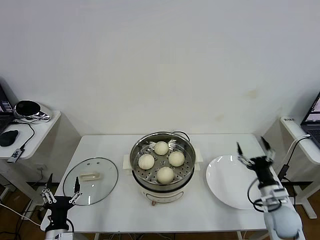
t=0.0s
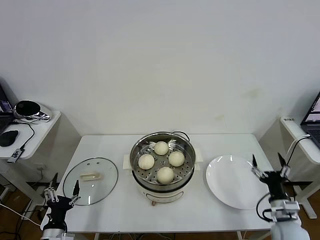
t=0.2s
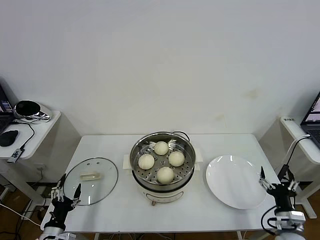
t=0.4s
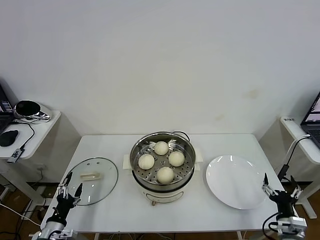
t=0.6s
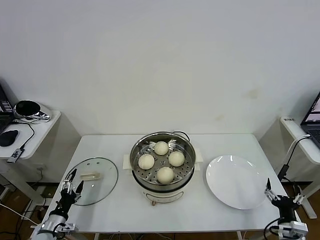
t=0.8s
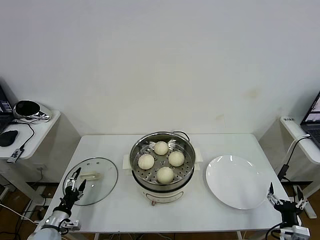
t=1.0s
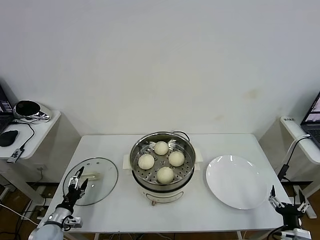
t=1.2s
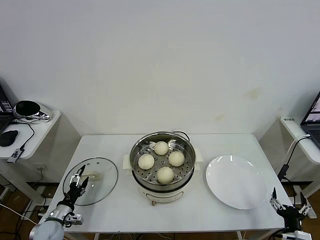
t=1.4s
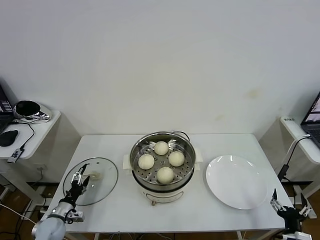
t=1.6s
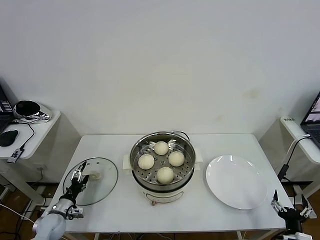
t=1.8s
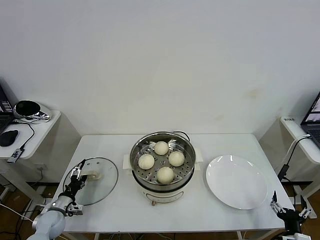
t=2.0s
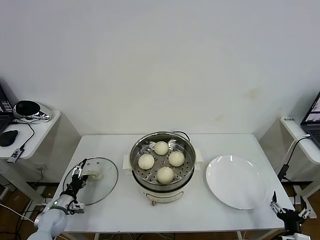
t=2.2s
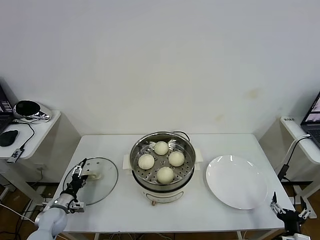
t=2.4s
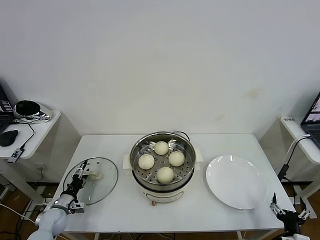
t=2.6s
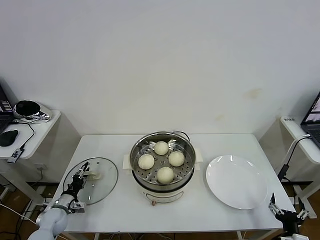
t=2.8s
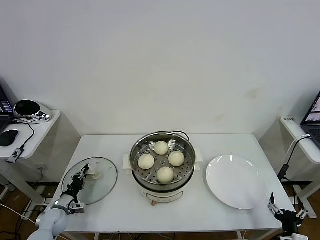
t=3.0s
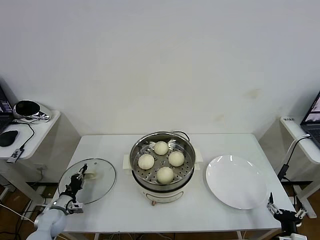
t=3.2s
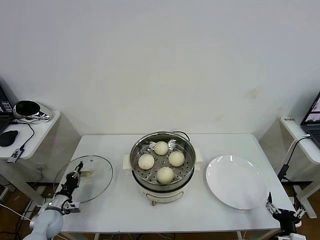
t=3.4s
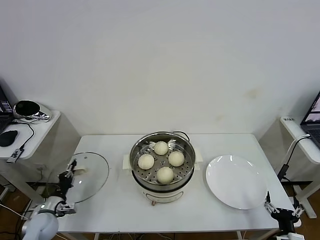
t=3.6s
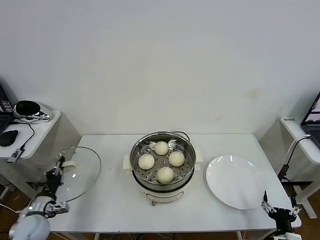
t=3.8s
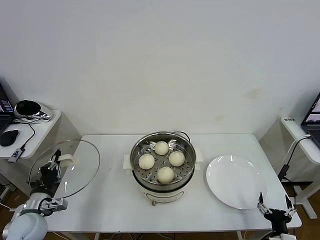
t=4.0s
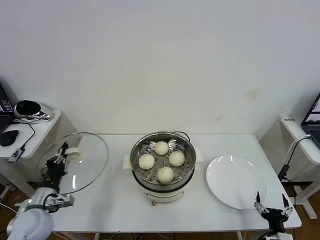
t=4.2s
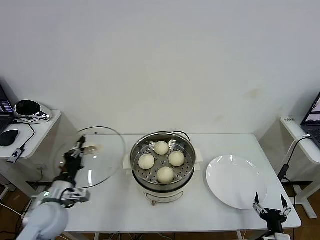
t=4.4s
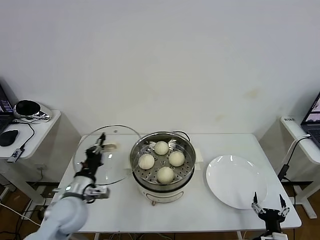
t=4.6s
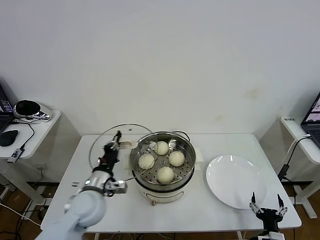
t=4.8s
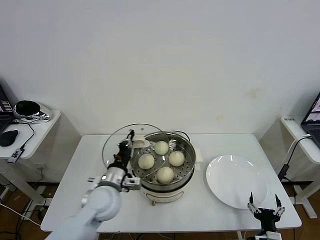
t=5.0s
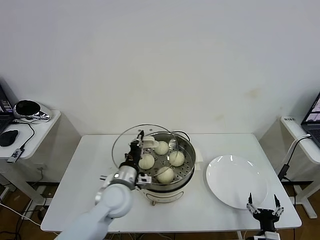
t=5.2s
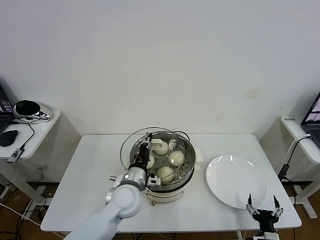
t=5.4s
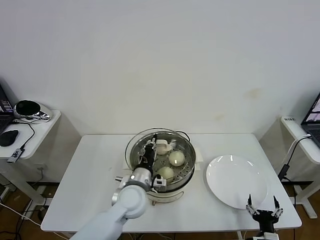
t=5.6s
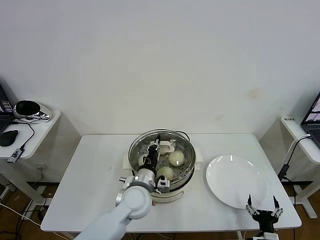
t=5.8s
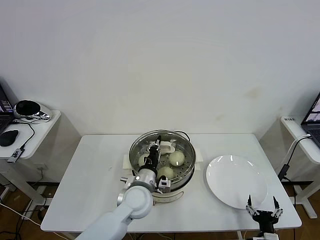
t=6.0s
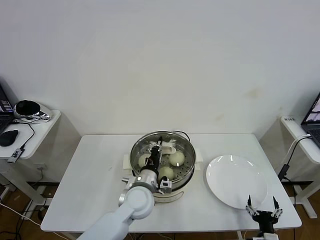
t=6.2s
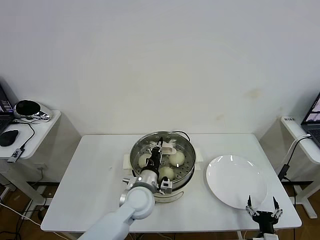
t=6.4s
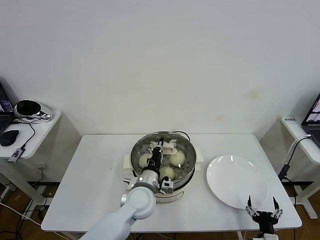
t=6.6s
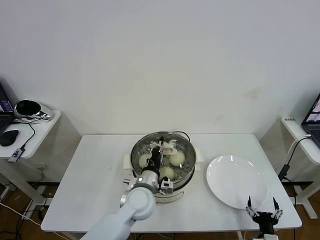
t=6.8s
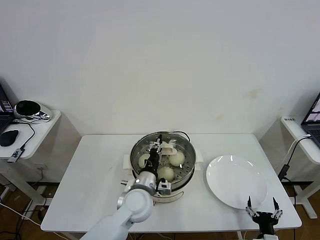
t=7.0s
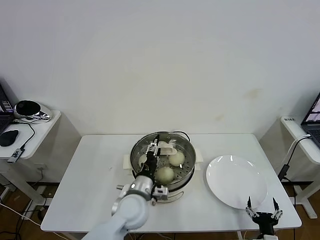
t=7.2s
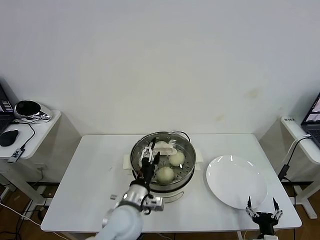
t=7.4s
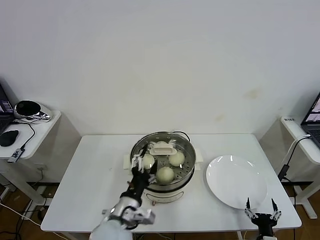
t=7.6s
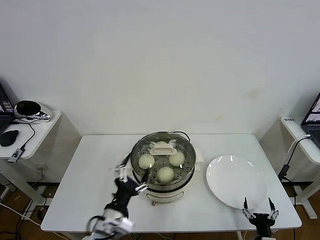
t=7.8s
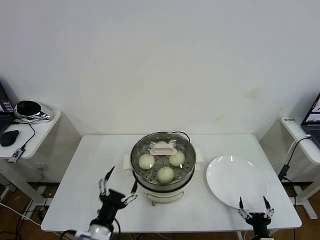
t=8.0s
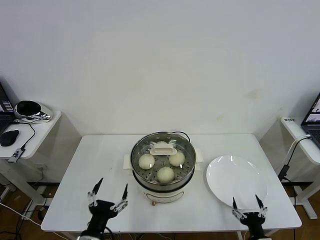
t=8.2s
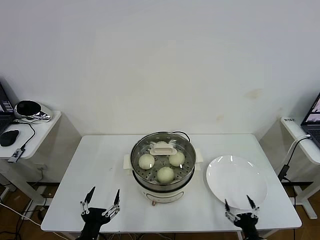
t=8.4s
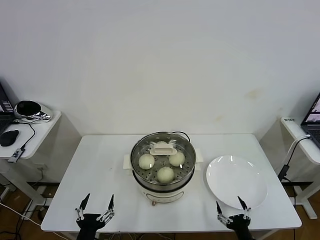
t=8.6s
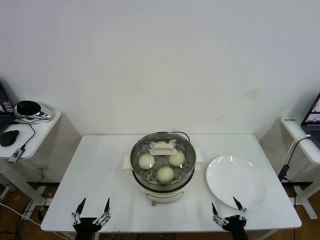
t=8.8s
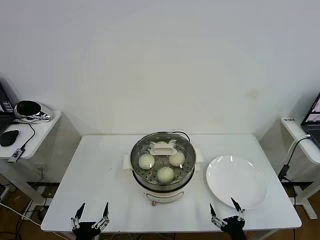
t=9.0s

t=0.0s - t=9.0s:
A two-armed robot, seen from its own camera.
Task of the whole recording: take steamed baozi put them in steamer then cover it.
Step, t=0.0s - t=3.2s: Grasp the pot lid with left gripper.
Step, t=3.4s - t=7.4s: Place the pot lid on the steamer with left gripper.
t=0.0s - t=1.6s: The right gripper is displaced backward and downward by some 15 cm. Meanwhile the left gripper travels forward, to the left and downward by approximately 15 cm.
t=1.6s - t=3.0s: The left gripper closes up.
t=3.0s - t=4.4s: The left gripper shifts some 20 cm upward and to the right.
t=4.4s - t=6.0s: The left gripper shifts about 25 cm to the right.
t=6.0s - t=7.6s: The left gripper goes approximately 10 cm backward, and opens its fingers.
t=7.6s - t=9.0s: The left gripper is displaced to the left, backward and downward by approximately 20 cm, while the right gripper goes roughly 5 cm to the left.

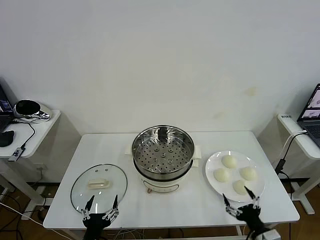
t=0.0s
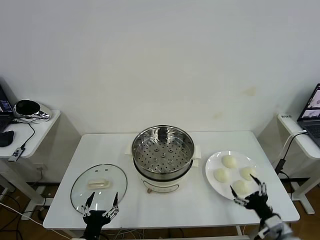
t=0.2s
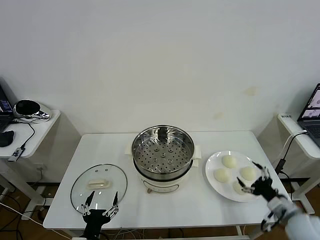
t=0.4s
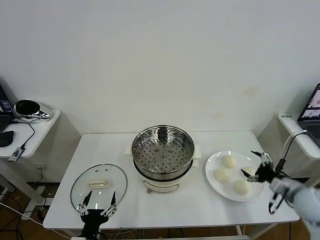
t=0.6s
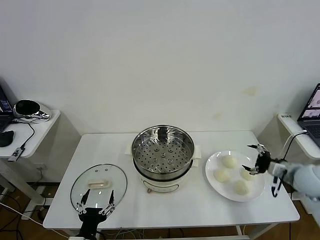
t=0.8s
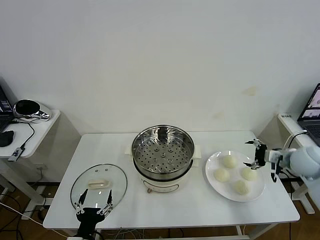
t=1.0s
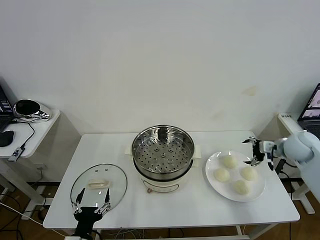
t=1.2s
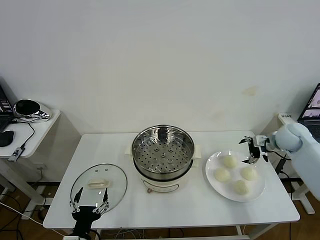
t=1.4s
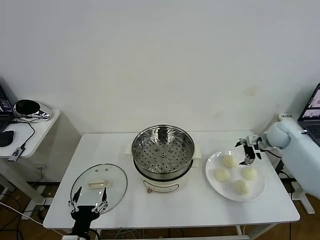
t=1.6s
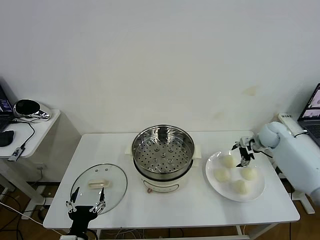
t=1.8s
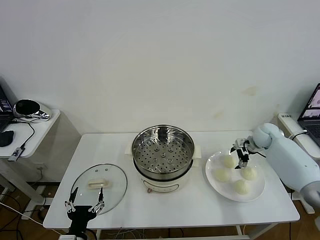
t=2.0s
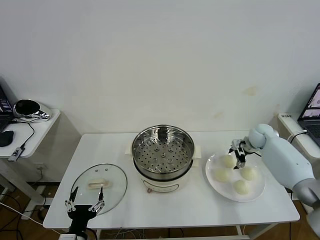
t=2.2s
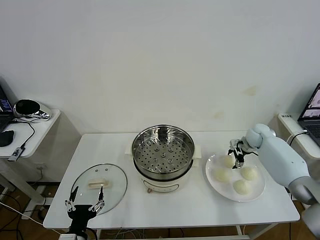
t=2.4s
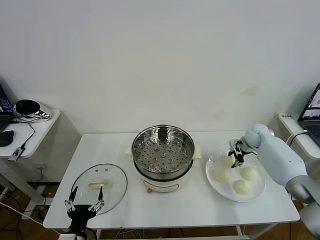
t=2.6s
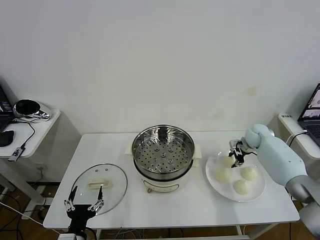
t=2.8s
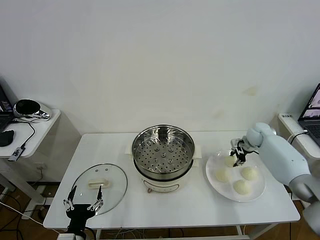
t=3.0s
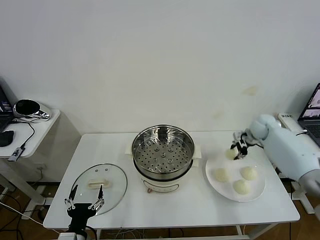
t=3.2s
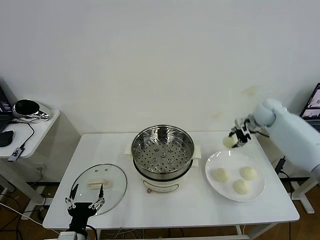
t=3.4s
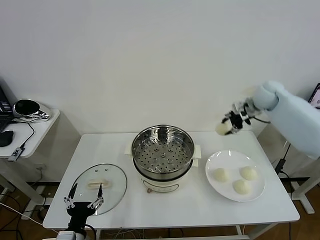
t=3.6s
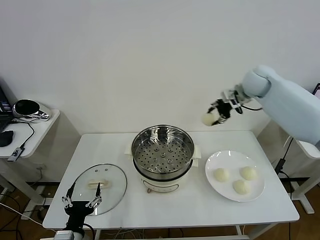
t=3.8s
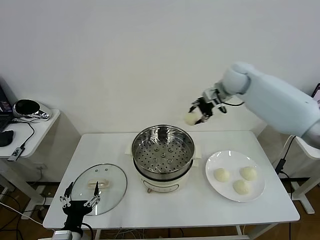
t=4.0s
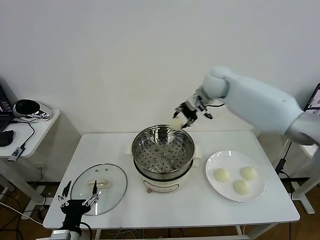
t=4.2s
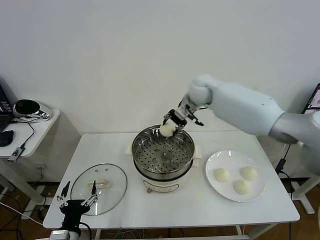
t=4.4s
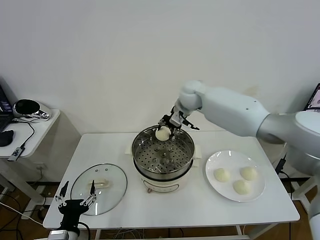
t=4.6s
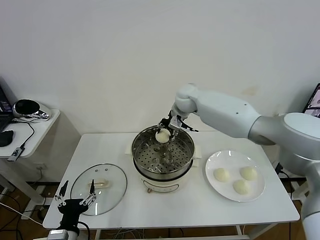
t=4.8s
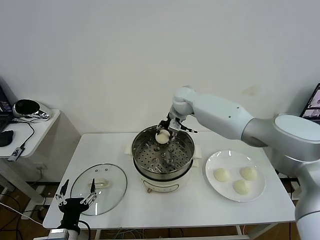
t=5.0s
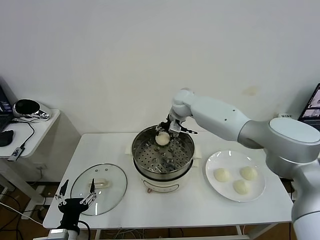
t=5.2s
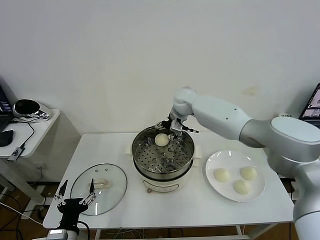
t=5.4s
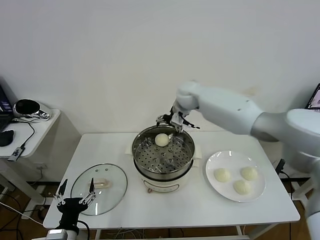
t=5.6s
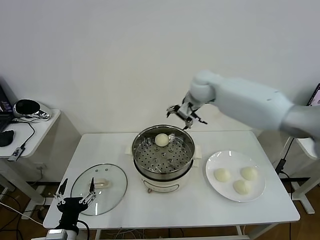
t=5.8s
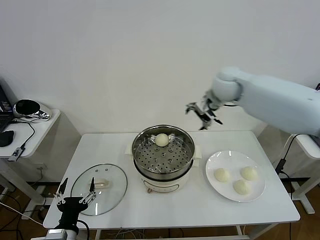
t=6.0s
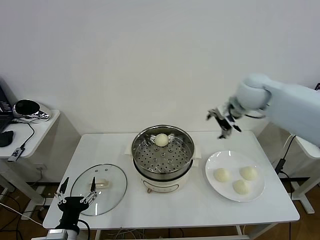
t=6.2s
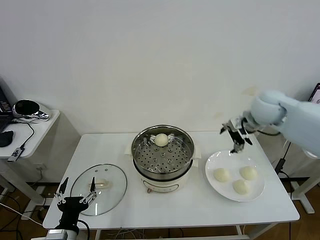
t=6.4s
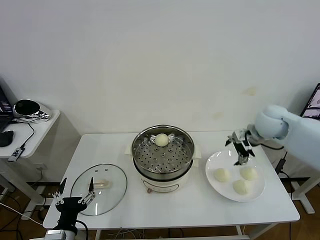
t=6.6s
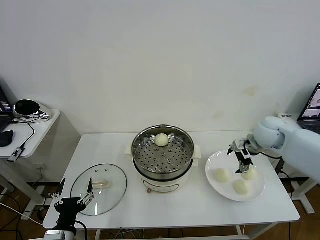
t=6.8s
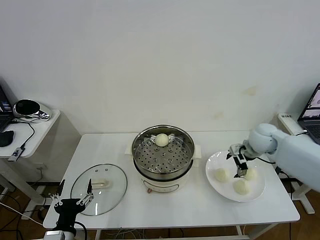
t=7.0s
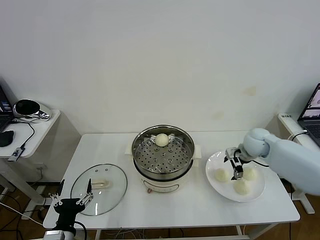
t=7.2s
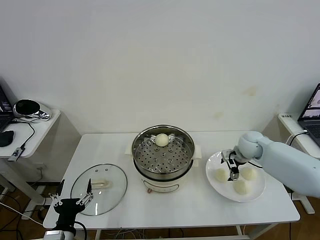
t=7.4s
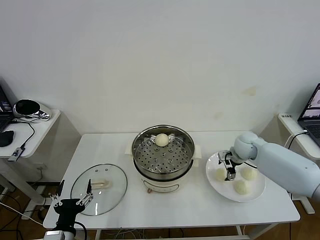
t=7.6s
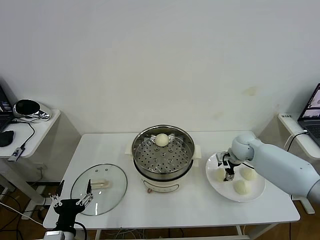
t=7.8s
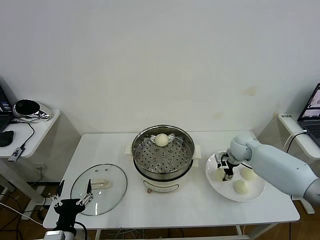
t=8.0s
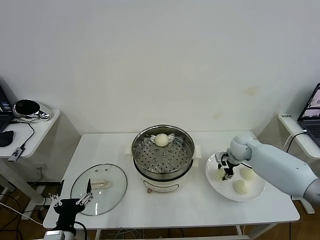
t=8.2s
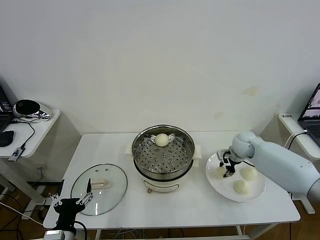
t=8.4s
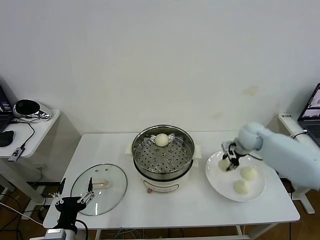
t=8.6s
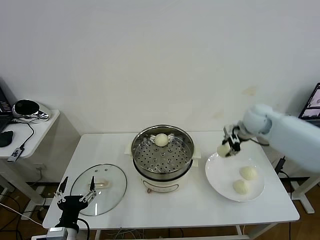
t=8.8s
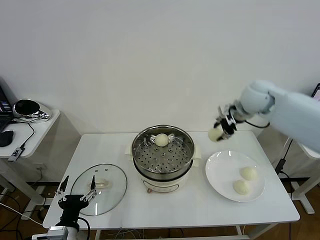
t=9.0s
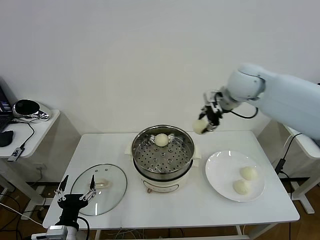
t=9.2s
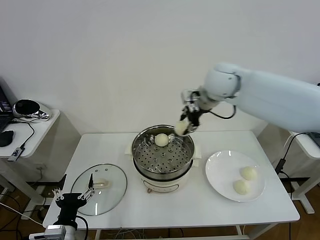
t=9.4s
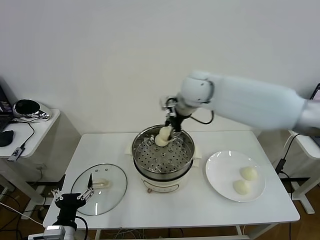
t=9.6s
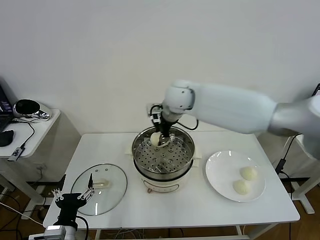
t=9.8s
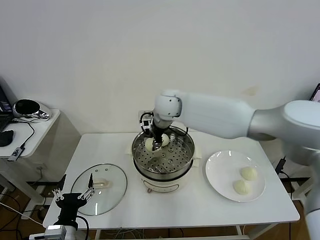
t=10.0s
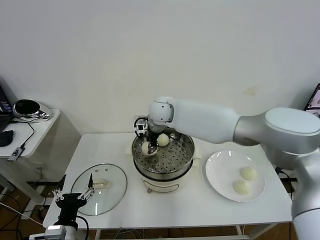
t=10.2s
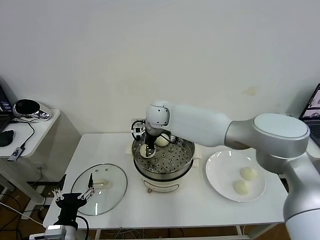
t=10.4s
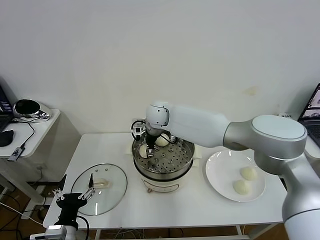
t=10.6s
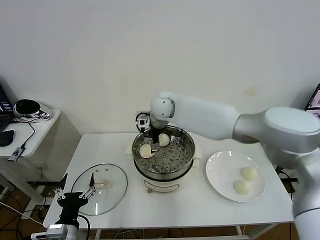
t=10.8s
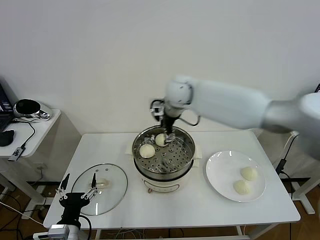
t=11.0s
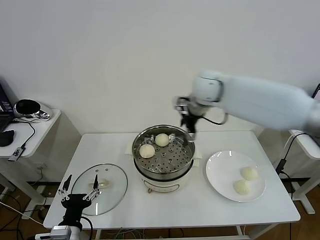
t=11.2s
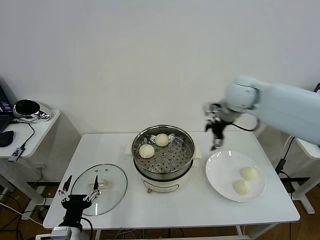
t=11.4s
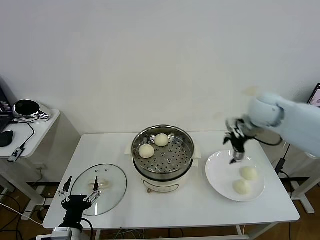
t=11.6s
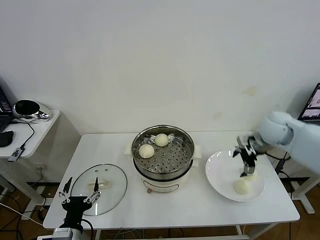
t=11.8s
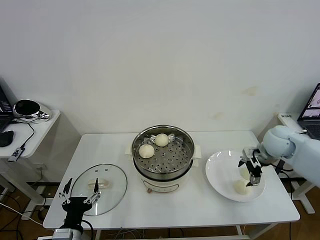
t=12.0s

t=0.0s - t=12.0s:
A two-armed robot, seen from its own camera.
Task of the whole recording: take steamed baozi put them in steamer then cover it.
Step, t=0.0s - t=2.6s: Grasp the baozi in the plate with right gripper.
Step, t=2.8s - t=5.2s: Place the baozi on the steamer with right gripper.
Step, t=5.6s - t=8.2s: Grasp the baozi in the plate with right gripper.
Step, t=8.4s - t=10.8s: Place the baozi on the steamer with right gripper.
t=1.6s - t=3.0s: The right gripper moves some 5 cm, and closes its fingers.
t=3.0s - t=4.4s: The right gripper is displaced to the left and upward by approximately 35 cm.
t=4.4s - t=6.0s: The right gripper goes about 15 cm to the right, backward and upward, and opens up.
t=6.0s - t=7.6s: The right gripper moves downward, approximately 25 cm.
t=7.6s - t=9.0s: The right gripper travels upward by roughly 25 cm, and closes.
t=9.0s - t=10.4s: The right gripper heads to the left and downward, covering some 30 cm.
t=10.4s - t=12.0s: The right gripper moves to the right, approximately 40 cm, and opens up.

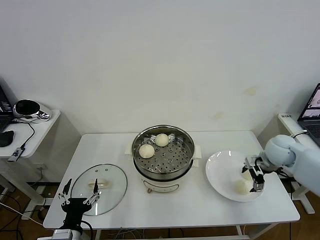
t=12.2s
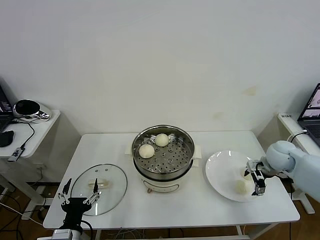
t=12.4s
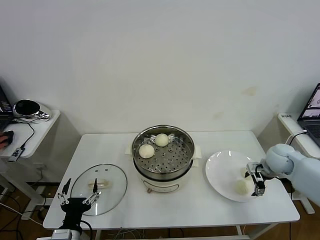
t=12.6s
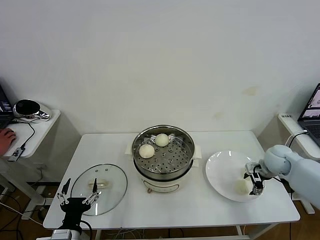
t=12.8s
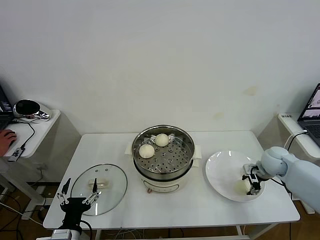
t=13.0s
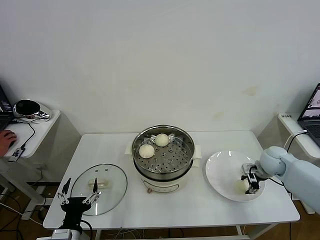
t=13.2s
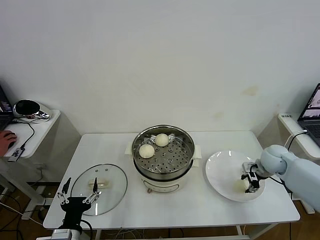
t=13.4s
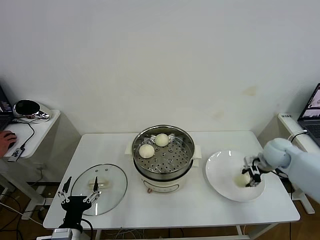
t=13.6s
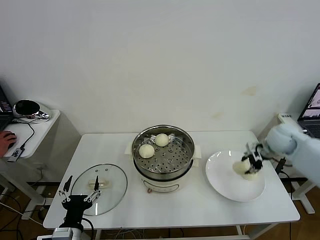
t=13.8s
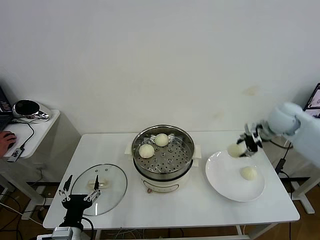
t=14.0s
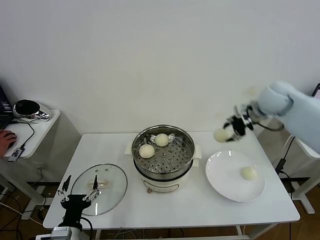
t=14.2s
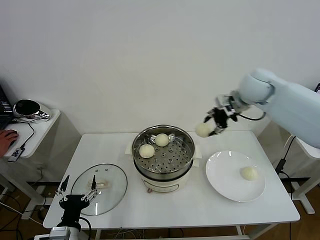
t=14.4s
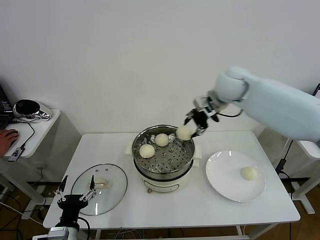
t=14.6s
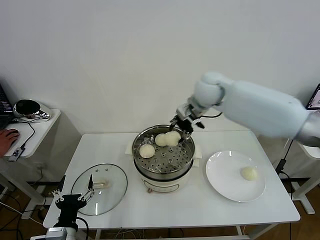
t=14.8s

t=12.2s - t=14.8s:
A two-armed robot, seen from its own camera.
Task of the whole recording: take steamed baozi put them in steamer then cover it.
t=12.2s - t=13.4s: The right gripper closes its fingers.
t=13.4s - t=14.8s: The right gripper travels to the left and upward by about 35 cm.
